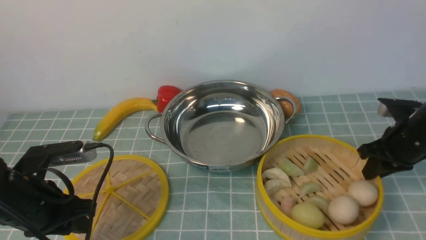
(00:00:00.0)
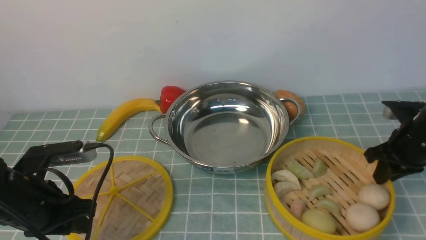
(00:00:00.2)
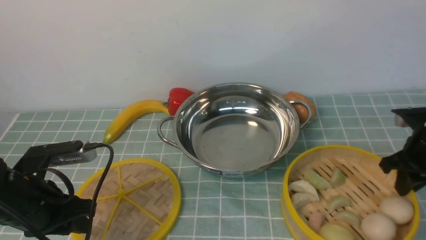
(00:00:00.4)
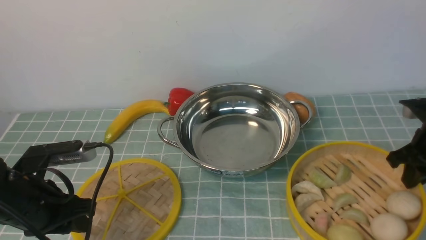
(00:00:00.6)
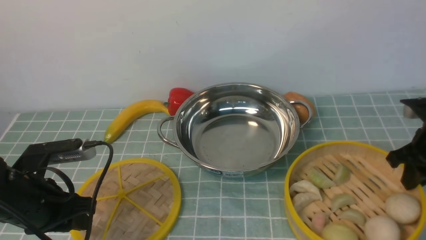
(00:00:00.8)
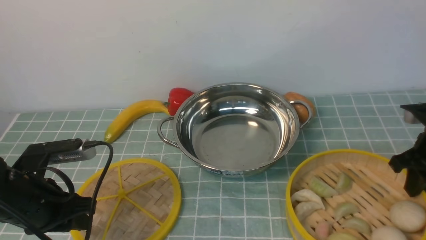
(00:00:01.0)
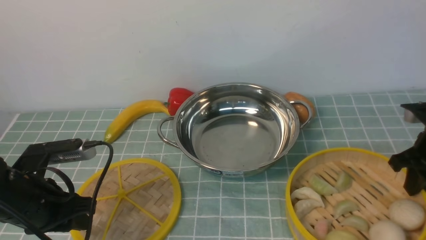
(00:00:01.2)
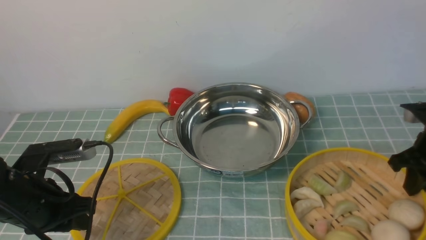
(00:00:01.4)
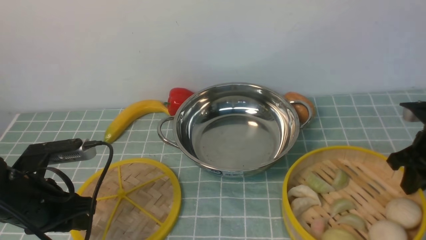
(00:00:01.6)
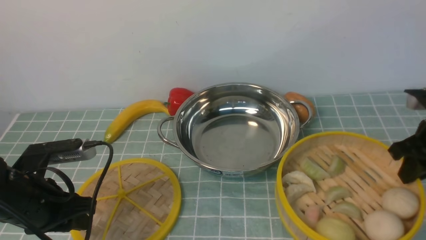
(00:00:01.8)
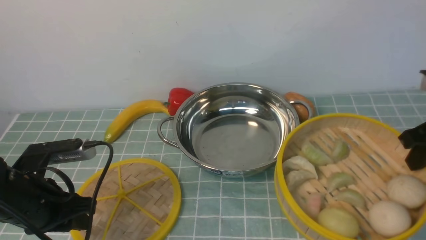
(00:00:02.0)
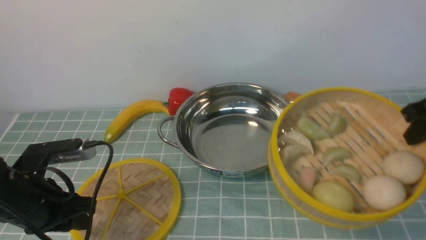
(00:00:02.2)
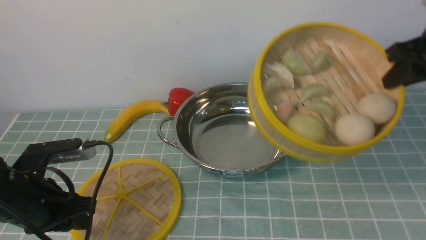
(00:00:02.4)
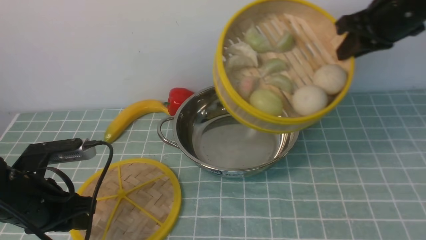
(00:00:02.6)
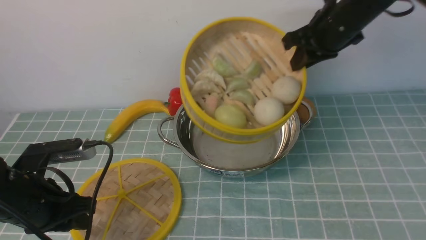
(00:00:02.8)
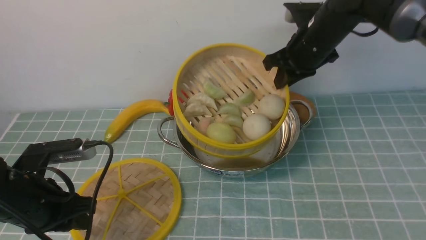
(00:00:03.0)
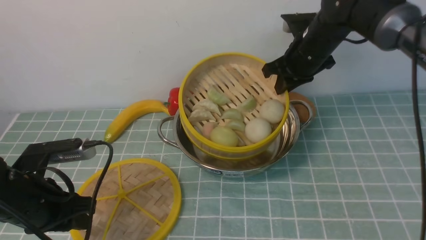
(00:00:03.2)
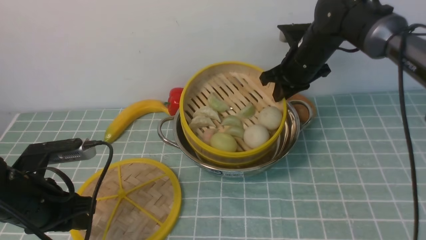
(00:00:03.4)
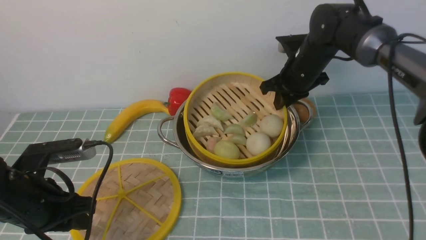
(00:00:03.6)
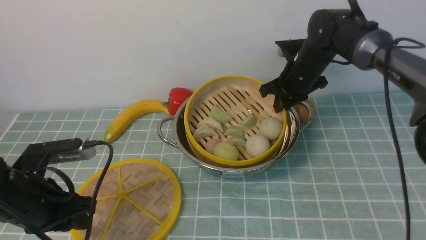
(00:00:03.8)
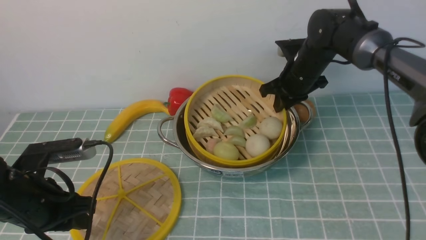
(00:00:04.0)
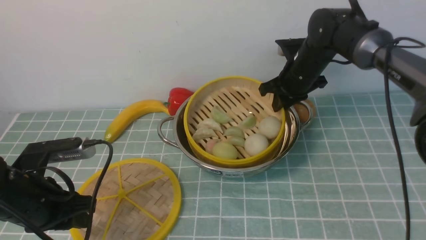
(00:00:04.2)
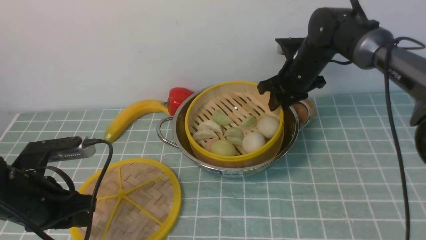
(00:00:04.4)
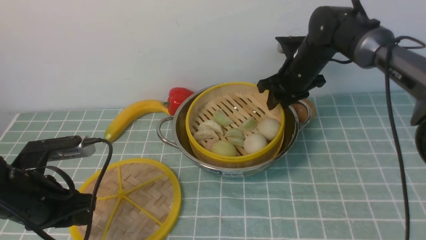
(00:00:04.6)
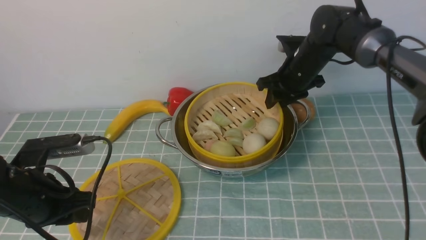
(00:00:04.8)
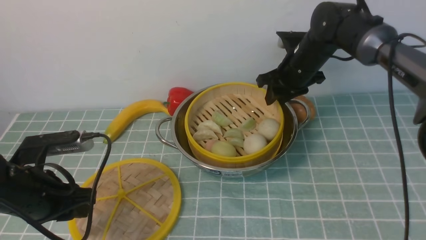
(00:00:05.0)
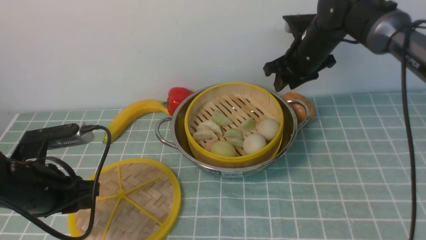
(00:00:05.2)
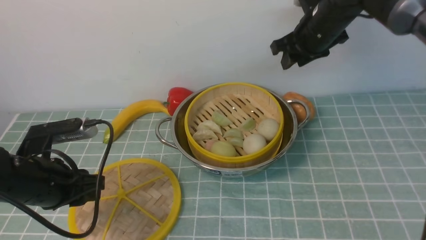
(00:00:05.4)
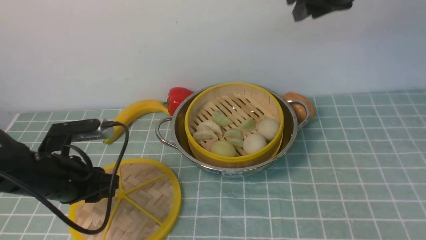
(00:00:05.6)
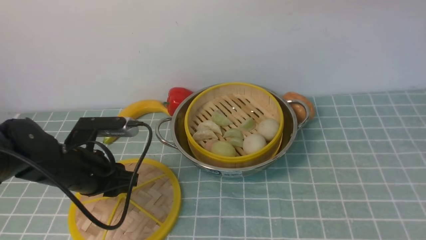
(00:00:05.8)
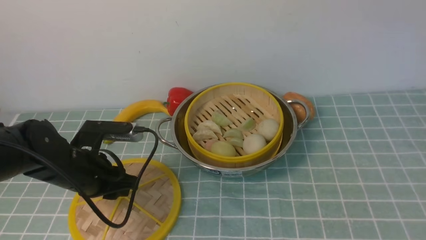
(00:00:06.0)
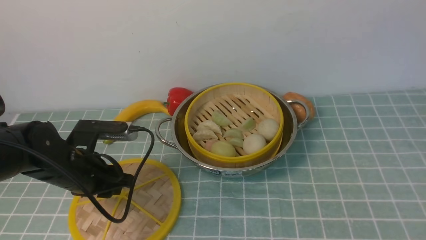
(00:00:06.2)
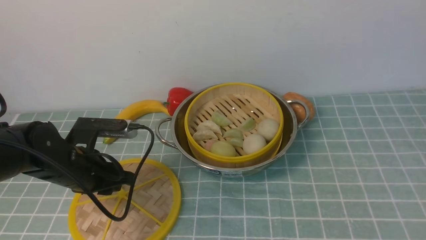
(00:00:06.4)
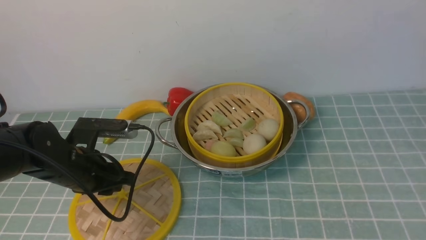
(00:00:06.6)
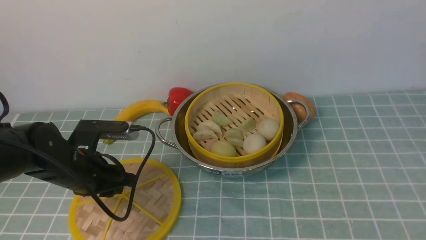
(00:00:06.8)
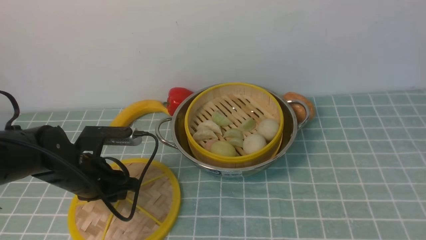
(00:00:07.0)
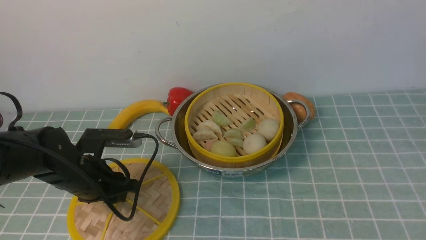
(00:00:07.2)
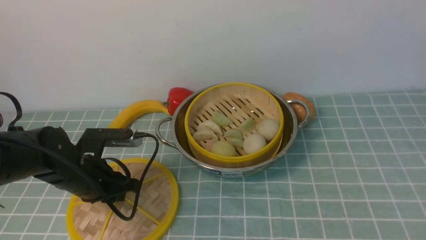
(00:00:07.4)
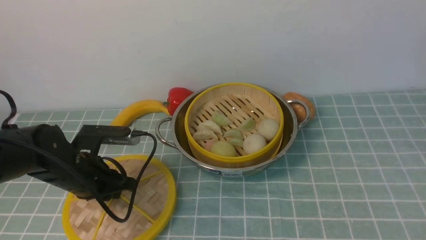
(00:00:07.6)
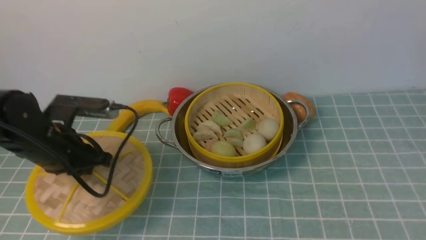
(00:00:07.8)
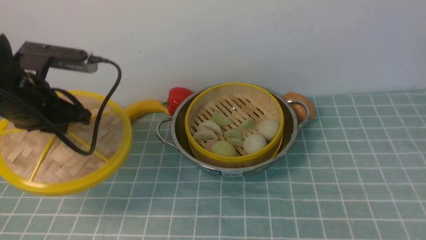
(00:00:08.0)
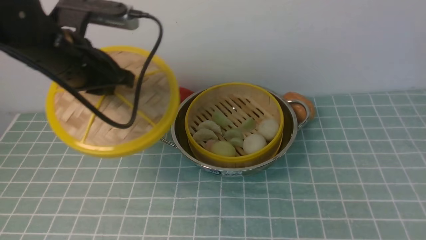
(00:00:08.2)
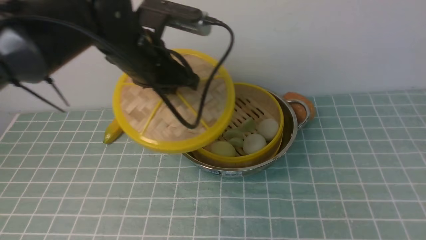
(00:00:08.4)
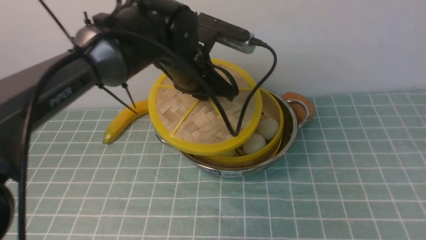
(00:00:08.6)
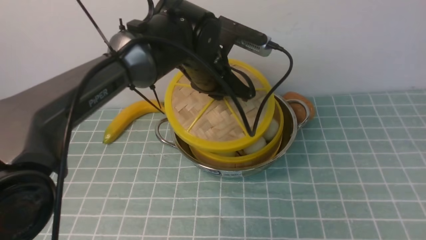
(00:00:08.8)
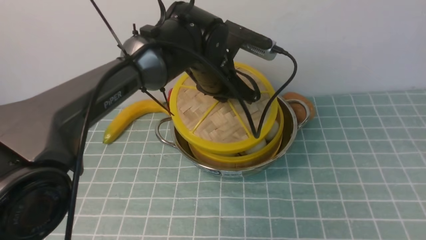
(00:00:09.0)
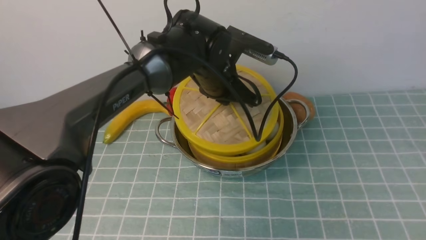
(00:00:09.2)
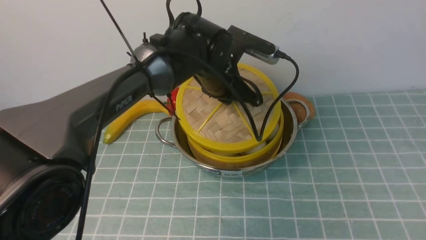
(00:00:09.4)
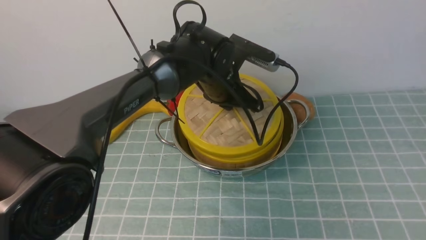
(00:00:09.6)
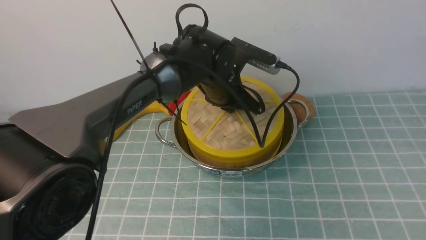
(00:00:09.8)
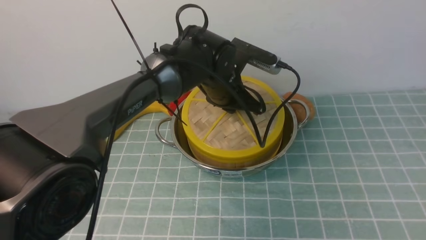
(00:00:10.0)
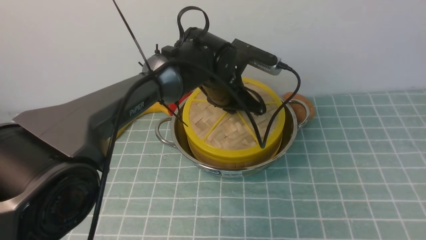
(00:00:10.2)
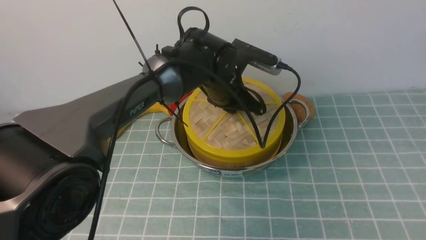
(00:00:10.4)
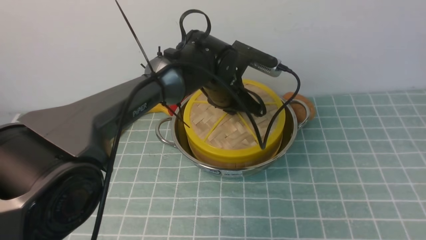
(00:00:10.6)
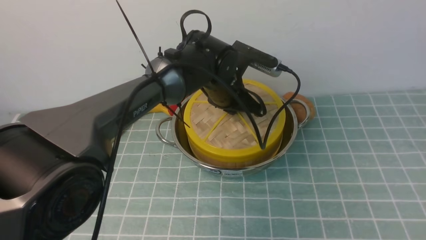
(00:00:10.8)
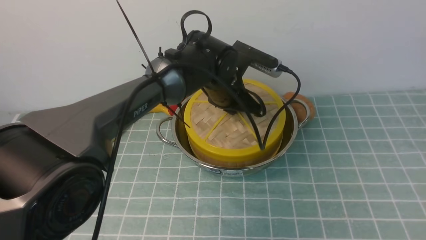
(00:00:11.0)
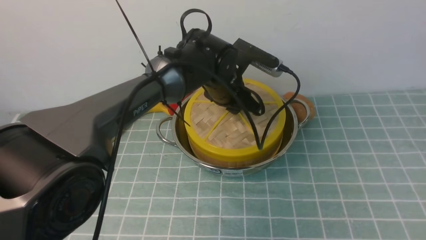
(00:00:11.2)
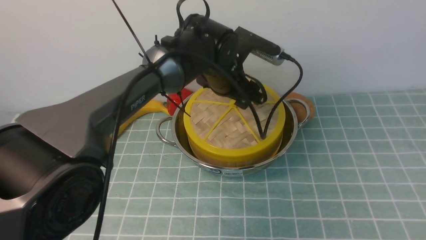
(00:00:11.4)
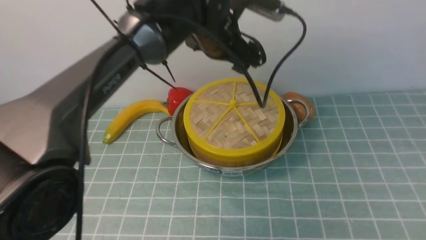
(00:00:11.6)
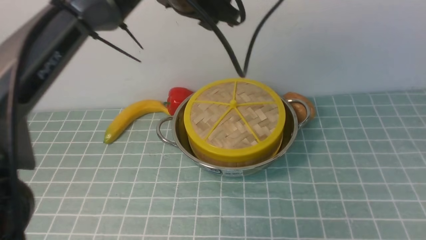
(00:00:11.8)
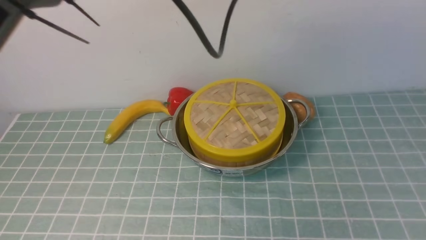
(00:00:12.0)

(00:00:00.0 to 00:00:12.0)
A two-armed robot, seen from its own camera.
Task of the whole recording: place the steamer in the pot on the blue tablecloth, and put the lid on the steamer.
Step, 00:00:00.0 - 00:00:02.2: use the right arm to lift the steamer closest to it.
Step, 00:00:02.4 - 00:00:05.4: use the right arm to put the steamer into the iron steamer pot in the middle.
Step, 00:00:05.6 - 00:00:07.8: use the left arm to lift the lid of the steamer.
Step, 00:00:08.2 - 00:00:11.8: use the left arm to place the steamer lid on the steamer.
00:00:00.0 - 00:00:01.6: The right gripper moves some 5 cm.
00:00:01.6 - 00:00:03.0: The right gripper is displaced to the left, forward and upward by roughly 20 cm.
00:00:03.0 - 00:00:04.4: The right gripper is displaced downward by about 10 cm, and opens its fingers.
00:00:04.4 - 00:00:06.0: The right gripper heads upward and backward, covering roughly 40 cm. Meanwhile the left gripper goes about 5 cm forward.
00:00:07.6 - 00:00:09.0: The left gripper moves to the right, forward and upward, about 25 cm.
00:00:09.0 - 00:00:10.4: The left gripper ends up some 5 cm from where it was.
00:00:10.4 - 00:00:12.0: The left gripper is displaced upward by roughly 20 cm, and opens, then closes once more, while the right gripper goes some 5 cm backward.

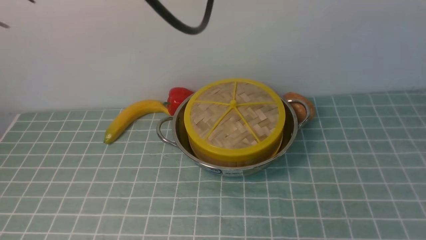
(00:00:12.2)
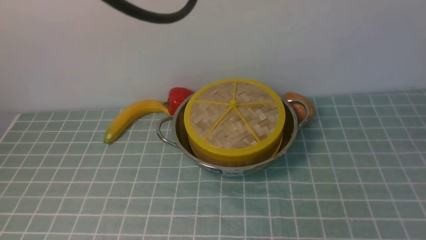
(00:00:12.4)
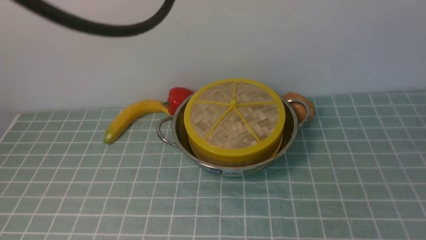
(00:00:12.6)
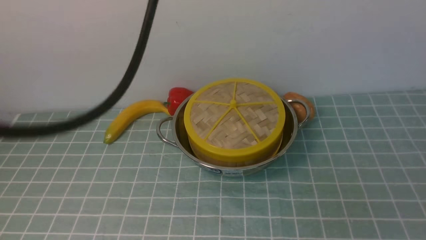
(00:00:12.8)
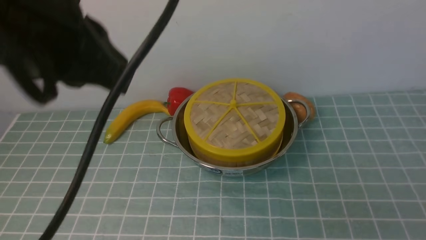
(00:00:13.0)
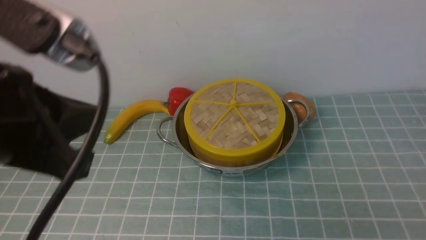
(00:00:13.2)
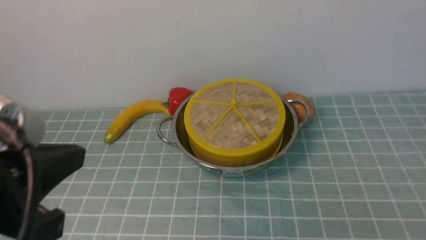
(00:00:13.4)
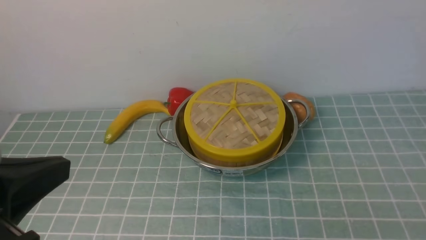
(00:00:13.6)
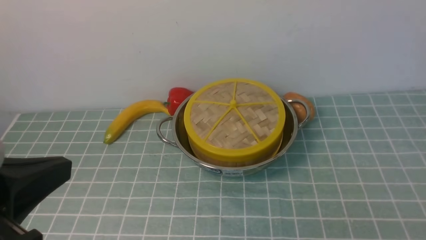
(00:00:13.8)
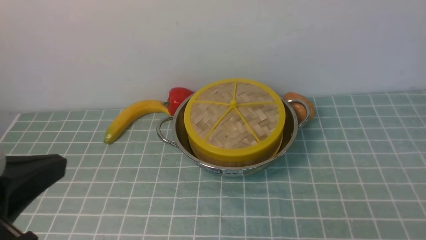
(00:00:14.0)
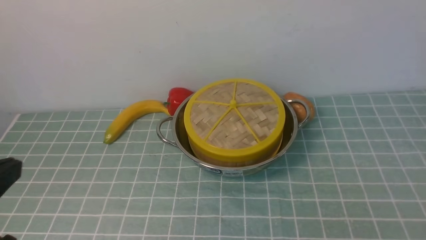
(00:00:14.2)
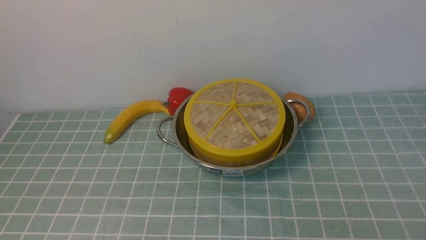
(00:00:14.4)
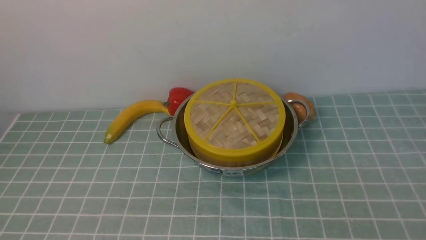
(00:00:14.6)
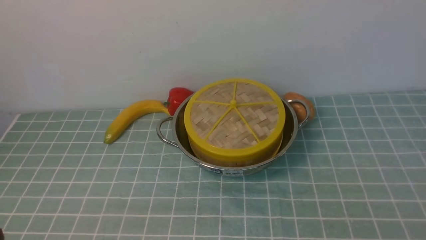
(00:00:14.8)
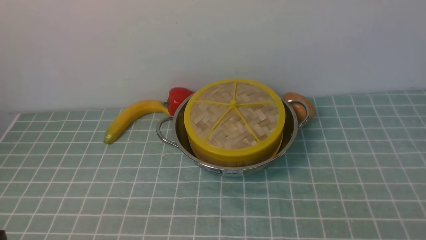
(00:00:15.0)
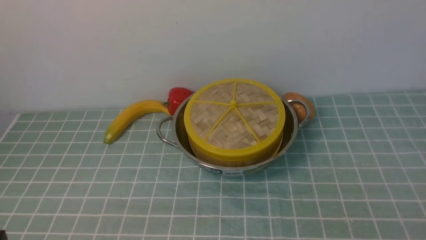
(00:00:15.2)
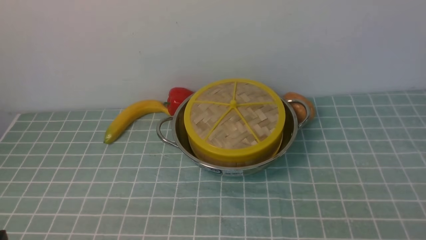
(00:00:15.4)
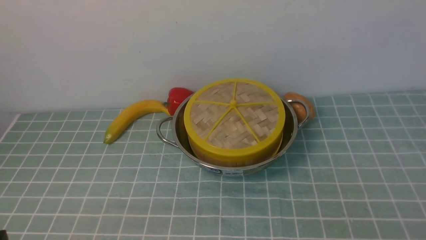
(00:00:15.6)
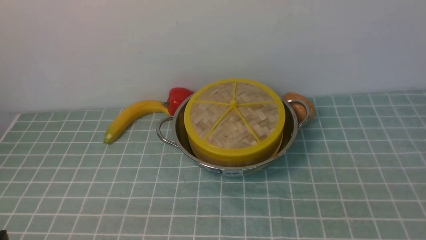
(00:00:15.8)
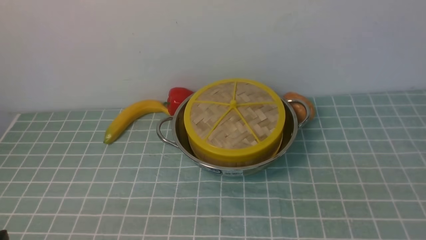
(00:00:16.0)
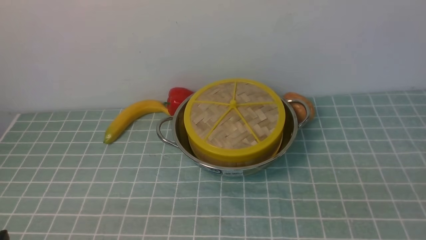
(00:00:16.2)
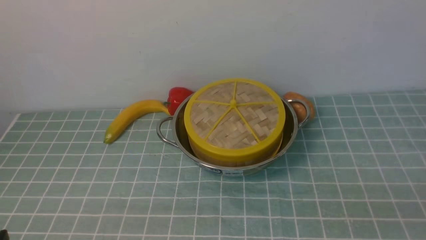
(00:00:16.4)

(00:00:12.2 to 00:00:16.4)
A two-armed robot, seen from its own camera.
Task of the whole recording: place the steamer in the pot on the blue tablecloth, and put the lid on the steamer.
00:00:12.2 - 00:00:13.6: The left gripper heads backward, to the left and downward, covering roughly 30 cm; the right gripper shifts roughly 25 cm downward.
00:00:13.6 - 00:00:15.0: The left gripper moves downward, some 20 cm.
